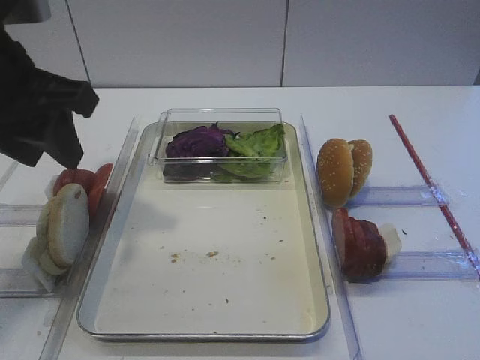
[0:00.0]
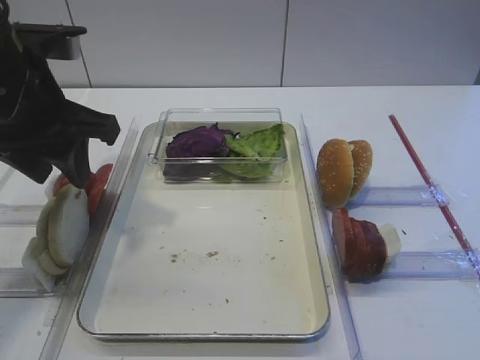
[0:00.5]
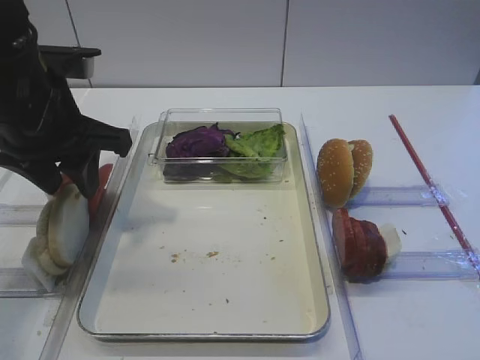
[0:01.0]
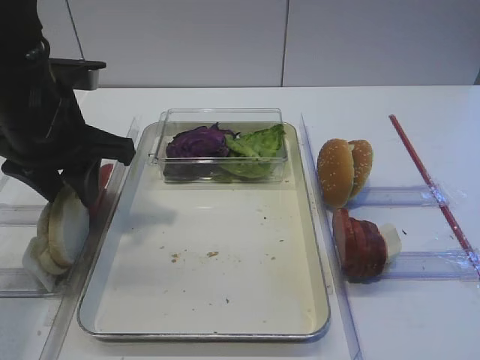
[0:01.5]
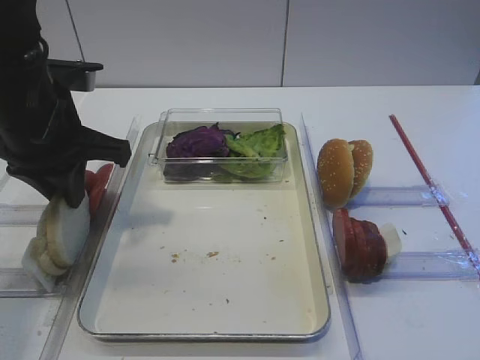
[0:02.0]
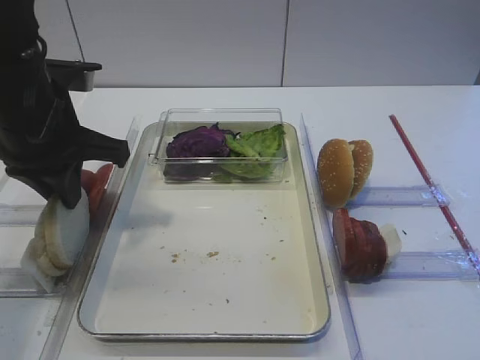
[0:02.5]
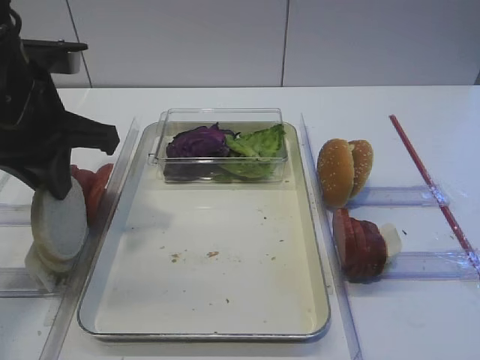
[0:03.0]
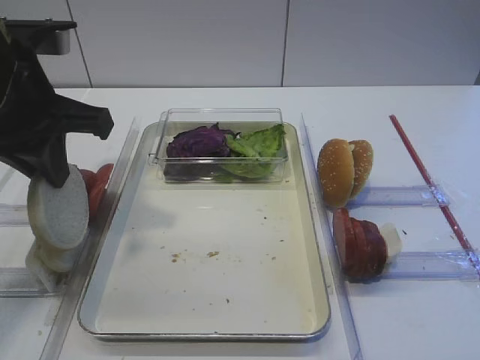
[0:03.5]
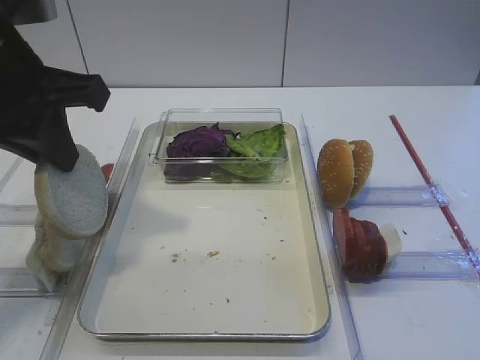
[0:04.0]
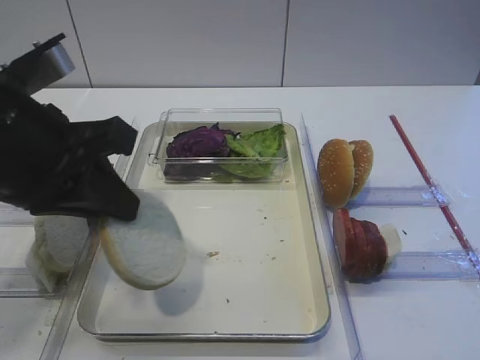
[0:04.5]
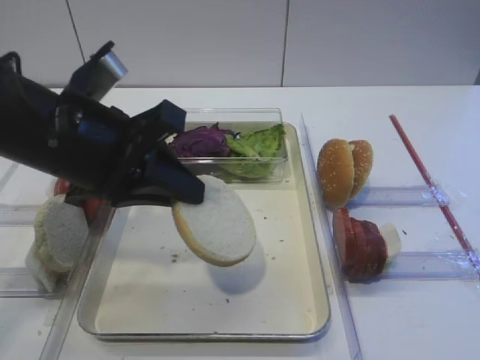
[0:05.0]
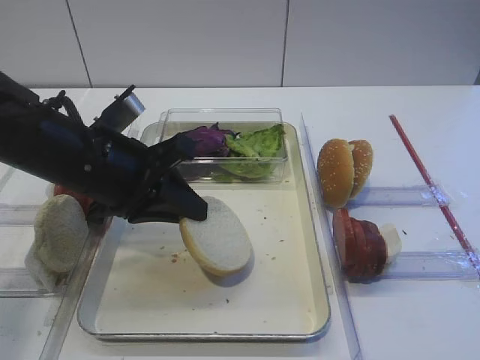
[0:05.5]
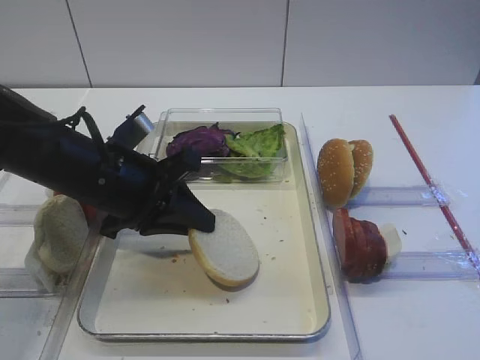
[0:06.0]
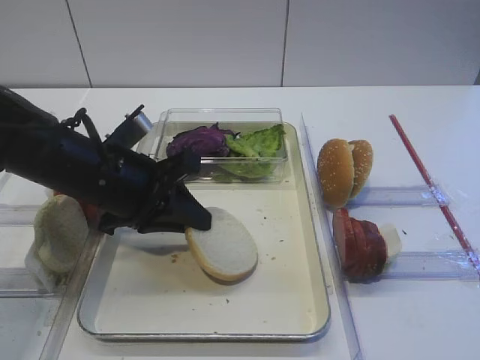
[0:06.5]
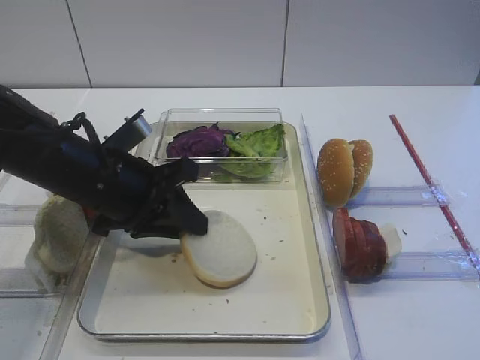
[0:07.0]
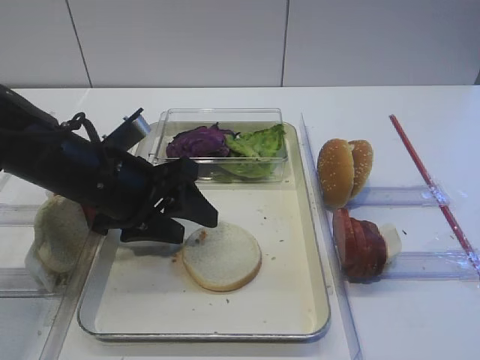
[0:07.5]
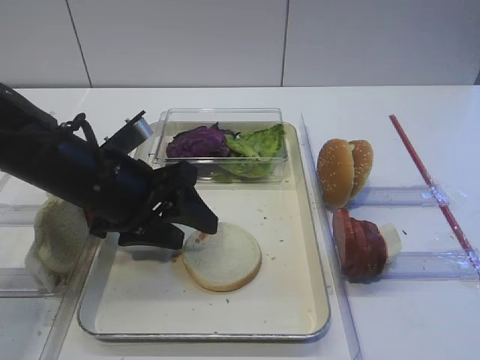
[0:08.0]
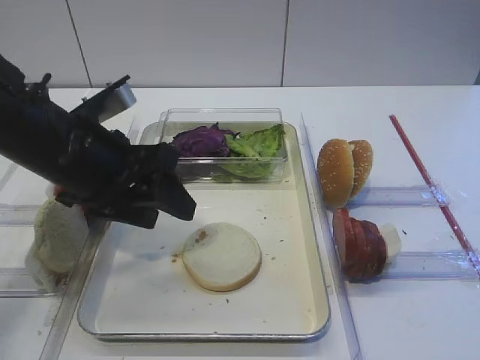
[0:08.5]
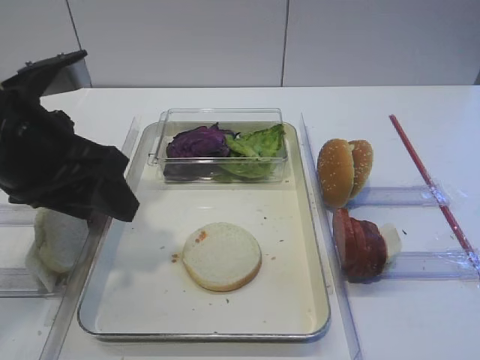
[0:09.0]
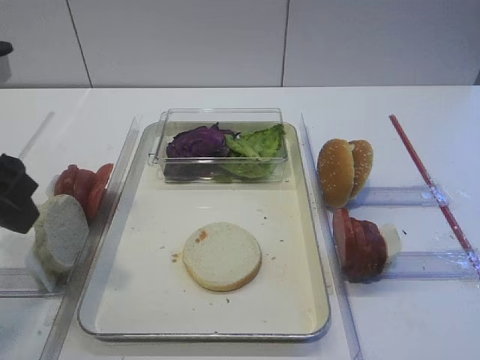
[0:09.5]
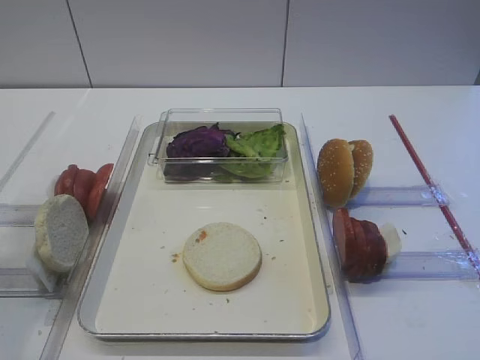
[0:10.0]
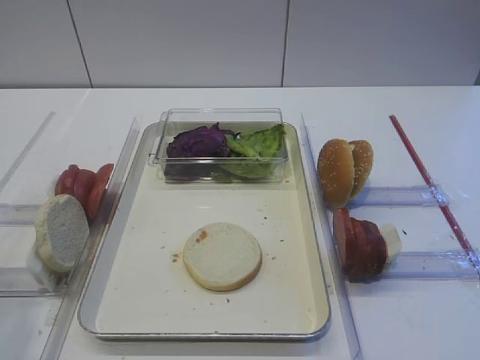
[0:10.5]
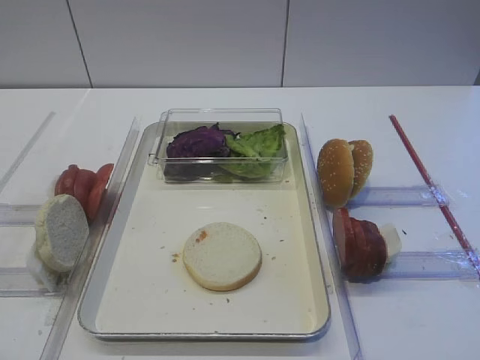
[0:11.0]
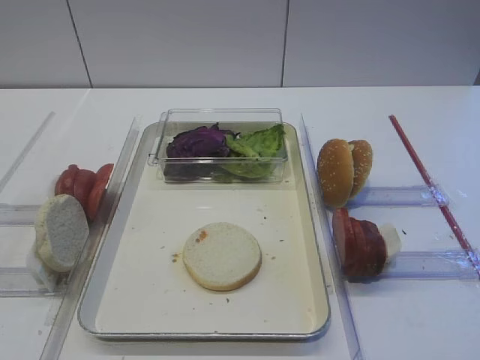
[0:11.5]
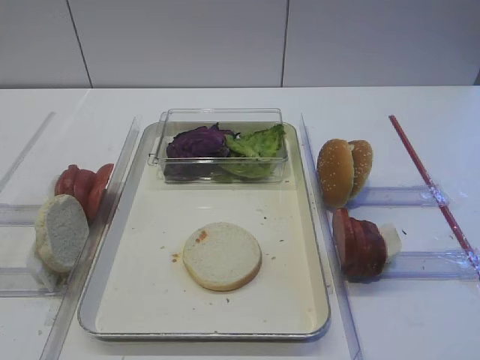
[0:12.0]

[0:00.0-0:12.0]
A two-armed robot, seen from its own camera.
Step, 0:00.0 to 0:03.0: Pick up the bread slice with the left gripper.
Step, 0:03.5 to 0:08.5: Place the bread slice on the tray with the left gripper.
0:00.0 to 0:02.0: The left gripper travels downward by some 5 cm, and closes up.
0:02.0 to 0:04.0: The left gripper heads upward and backward, covering some 10 cm.
0:04.0 to 0:06.0: The left gripper shifts roughly 15 cm downward and to the right.
0:06.0 to 0:08.0: The left gripper opens up.
0:08.0 to 0:10.0: The left gripper travels upward, backward and to the left by approximately 25 cm.
0:10.0 to 0:12.0: The left gripper is displaced backward and downward by roughly 15 cm.

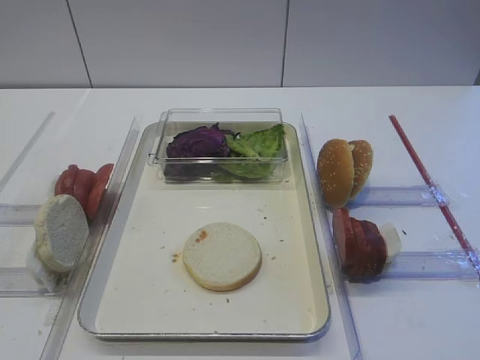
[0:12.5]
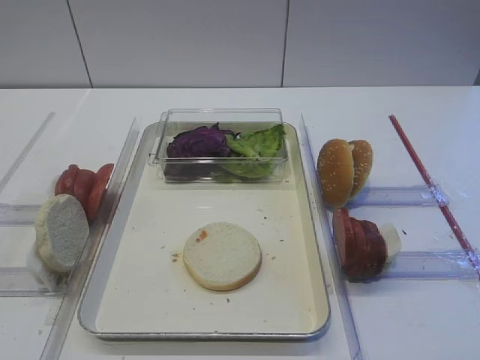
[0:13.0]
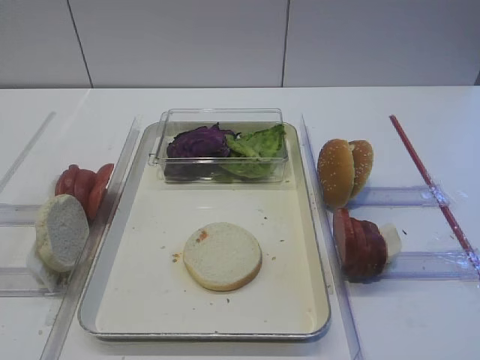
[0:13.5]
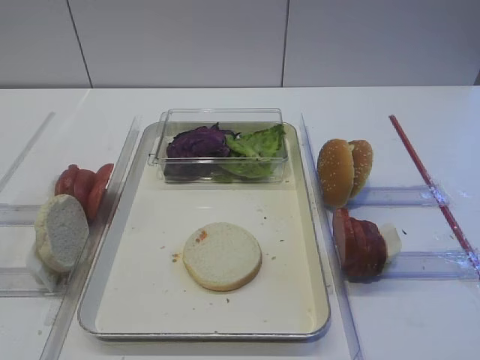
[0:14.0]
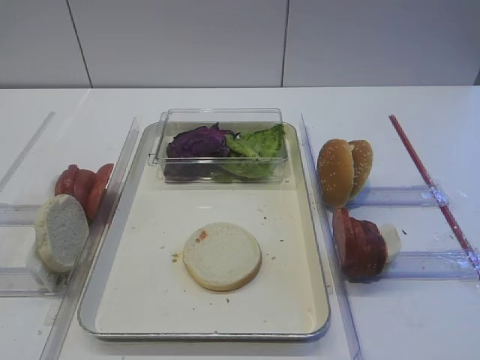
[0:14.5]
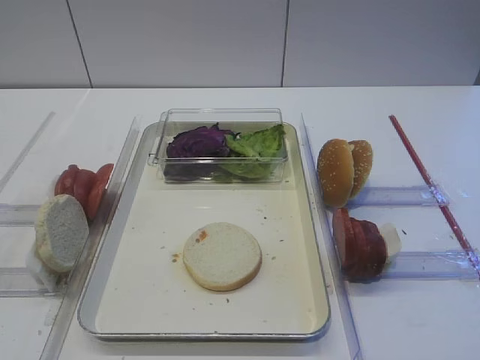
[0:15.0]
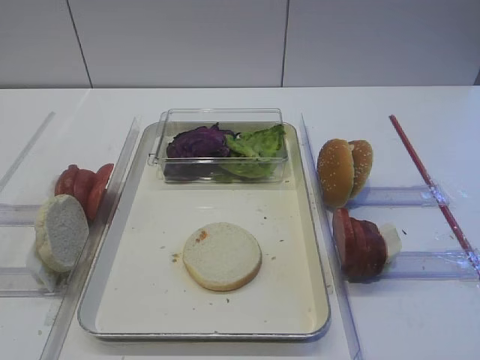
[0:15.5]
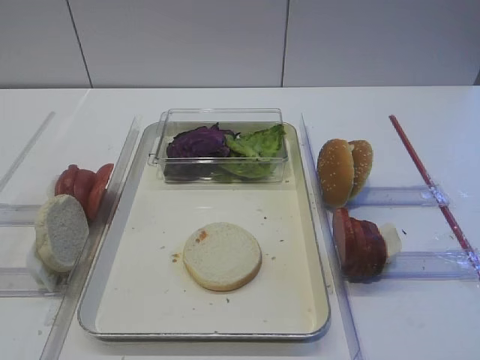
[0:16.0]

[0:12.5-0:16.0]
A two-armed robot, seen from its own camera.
0:14.5 to 0:16.0: Both grippers stay put.

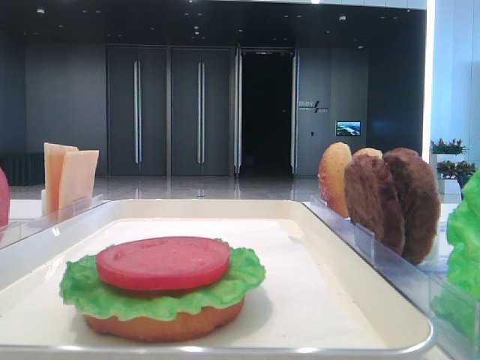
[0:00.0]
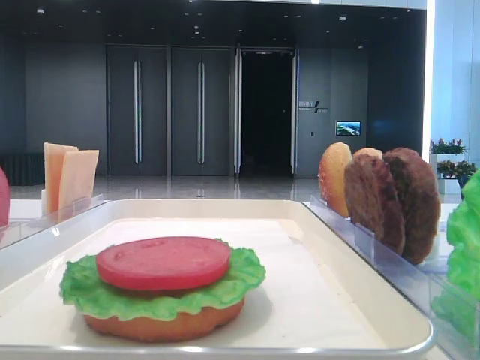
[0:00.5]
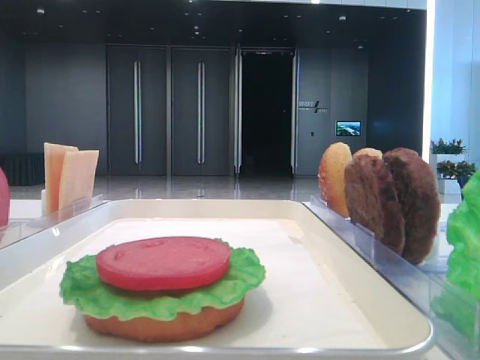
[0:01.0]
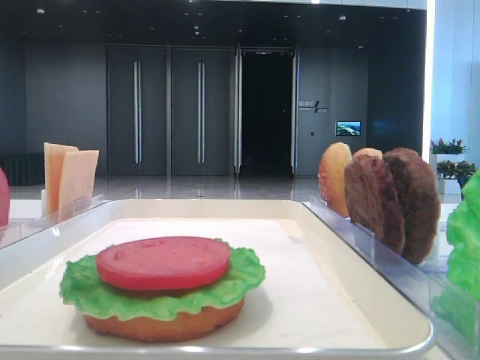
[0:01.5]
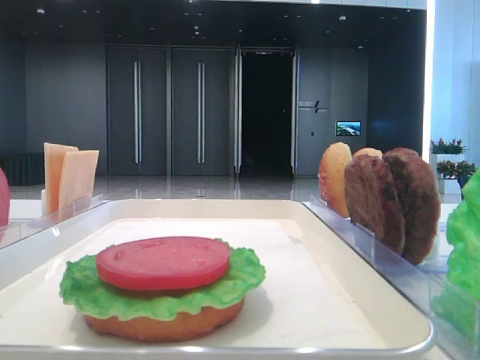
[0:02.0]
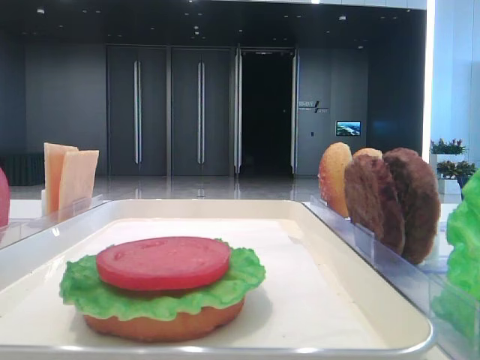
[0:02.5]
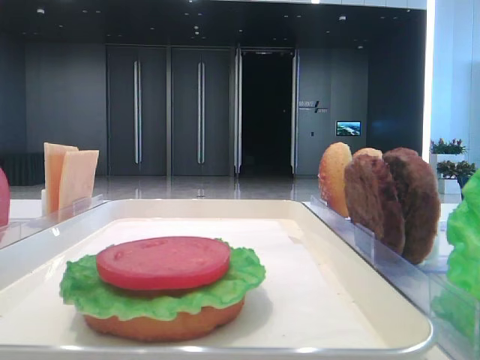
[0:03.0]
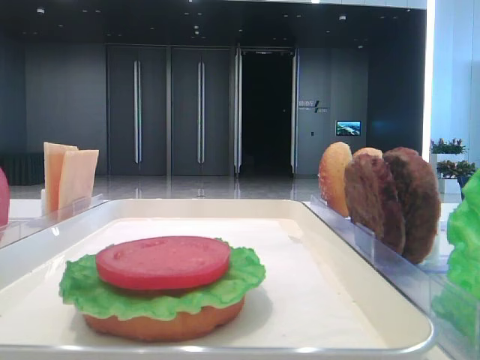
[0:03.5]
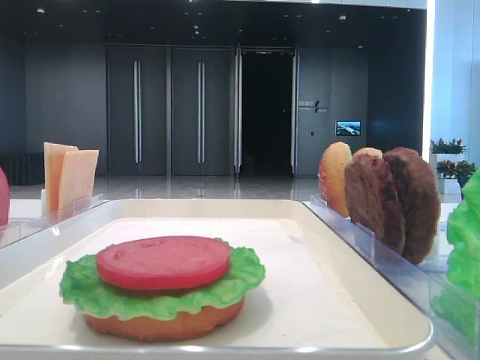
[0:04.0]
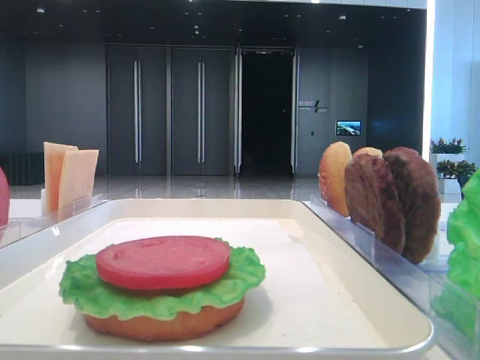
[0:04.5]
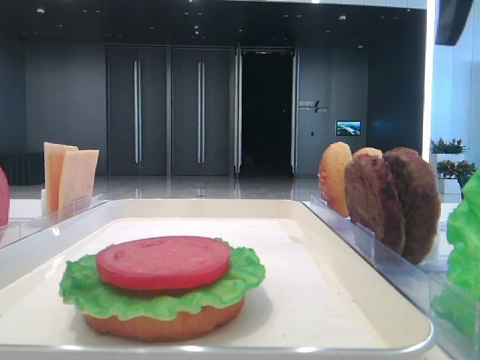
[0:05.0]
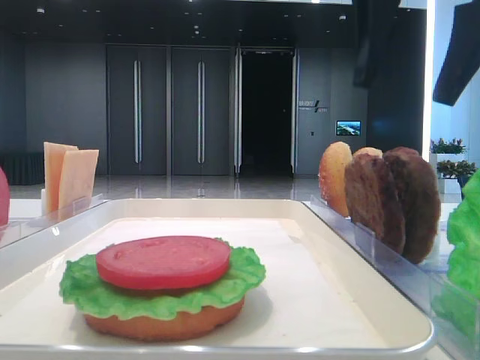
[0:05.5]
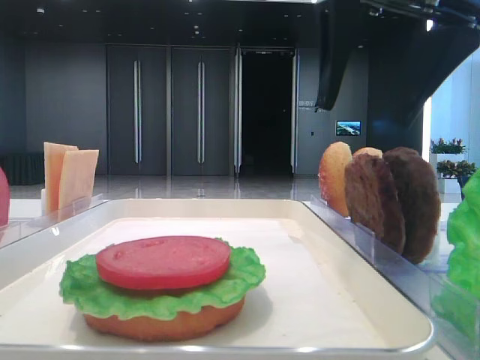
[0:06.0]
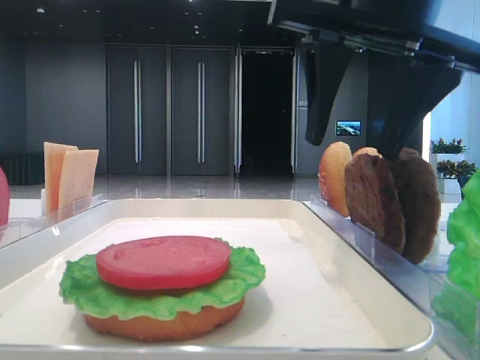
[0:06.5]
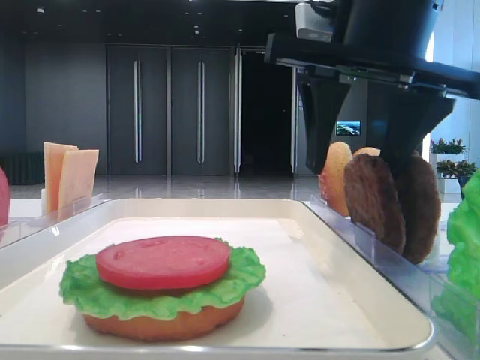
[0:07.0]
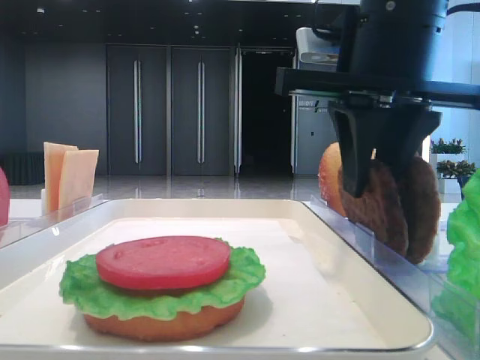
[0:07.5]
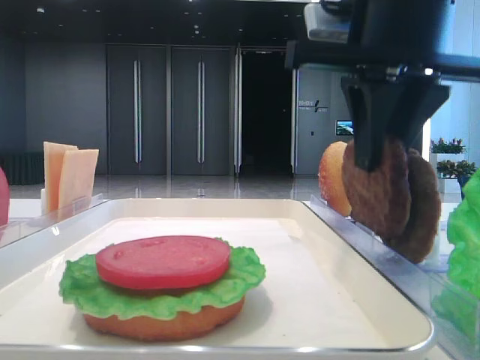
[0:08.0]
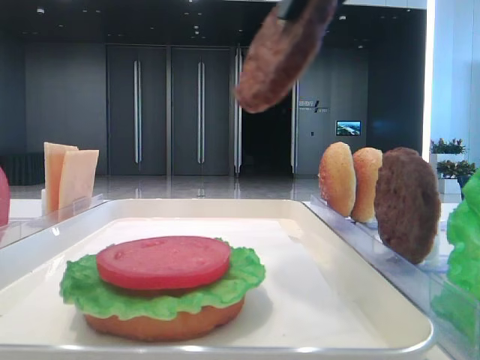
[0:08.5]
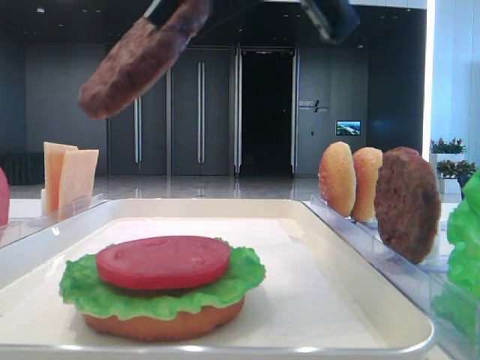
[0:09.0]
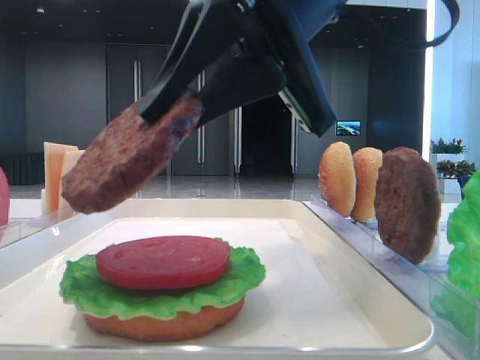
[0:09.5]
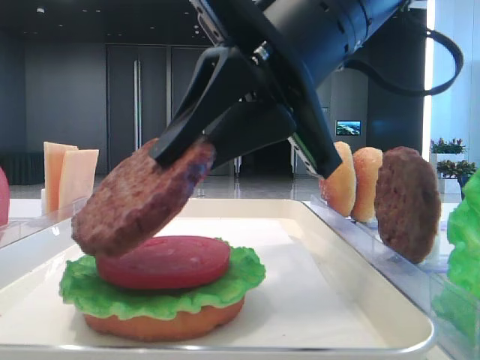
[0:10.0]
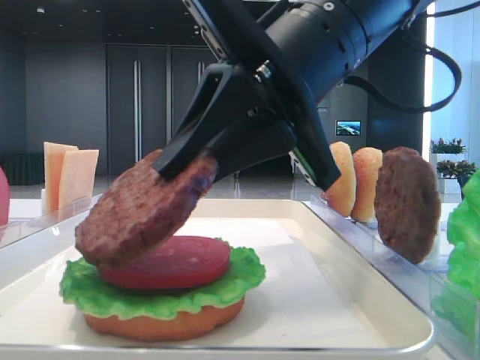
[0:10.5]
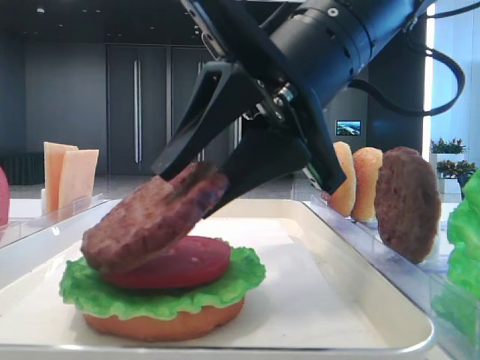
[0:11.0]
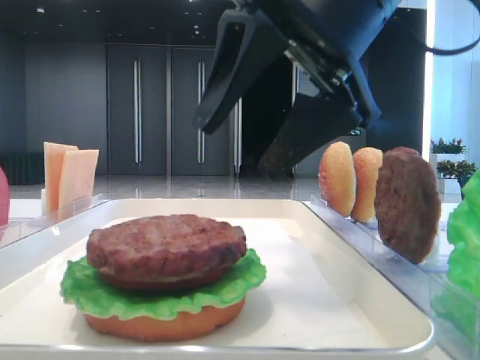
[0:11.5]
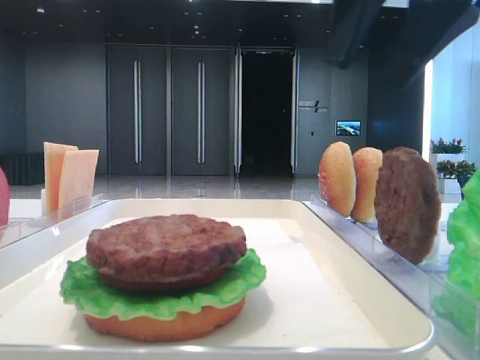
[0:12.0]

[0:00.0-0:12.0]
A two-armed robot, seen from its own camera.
Step, 0:00.0 to 0:07.5: Grab the patty with the right hand.
Step, 0:08.0 to 0:11.0: Place the patty on the tomato slice with the right hand.
0:04.0 to 0:06.0: The right gripper goes roughly 20 cm to the left.
0:06.0 to 0:08.0: The right gripper closes up.
0:08.0 to 0:10.0: The right gripper moves to the left, about 5 cm.
0:10.0 to 0:12.0: The right gripper moves to the right and upward, approximately 15 cm, and opens.
